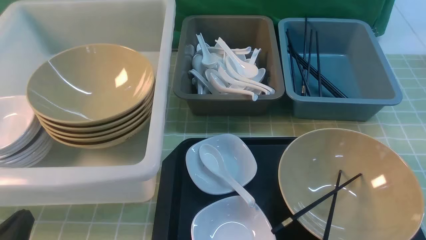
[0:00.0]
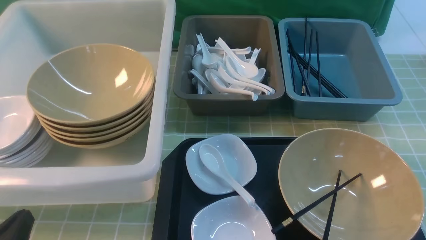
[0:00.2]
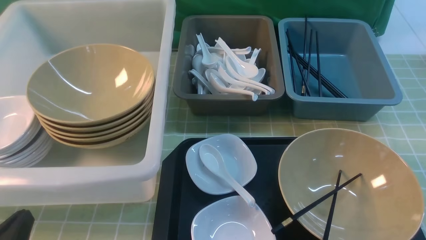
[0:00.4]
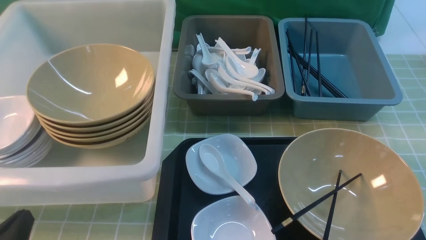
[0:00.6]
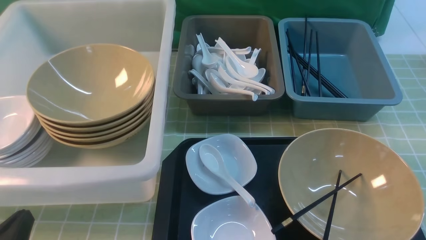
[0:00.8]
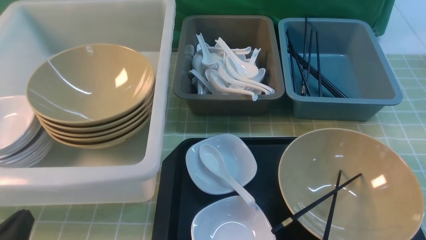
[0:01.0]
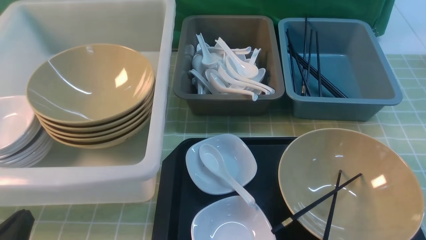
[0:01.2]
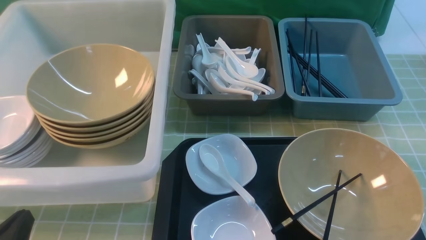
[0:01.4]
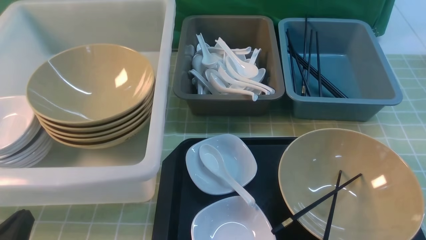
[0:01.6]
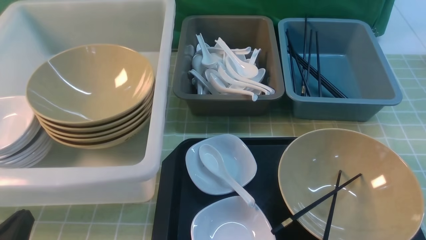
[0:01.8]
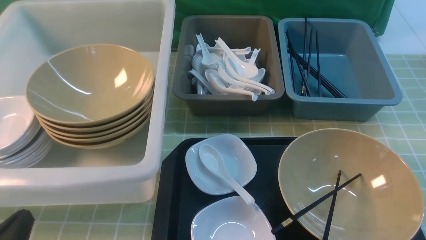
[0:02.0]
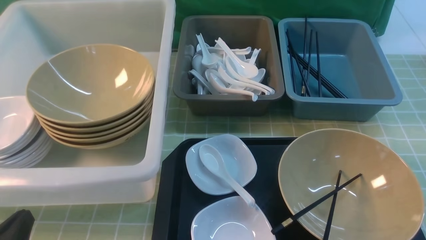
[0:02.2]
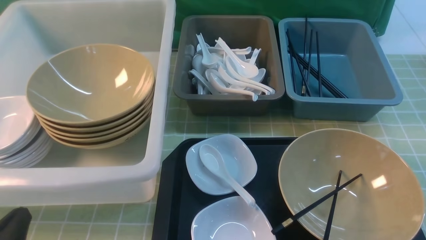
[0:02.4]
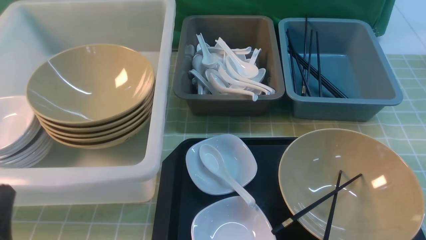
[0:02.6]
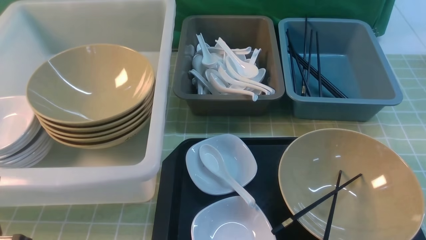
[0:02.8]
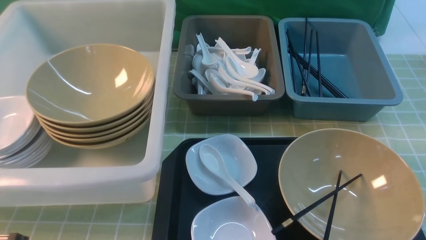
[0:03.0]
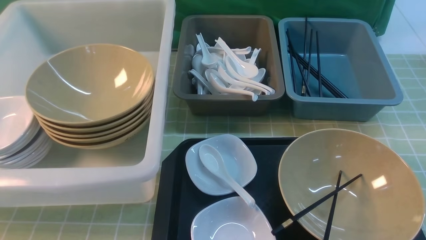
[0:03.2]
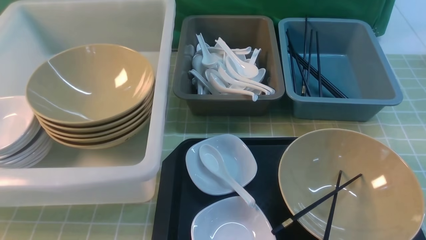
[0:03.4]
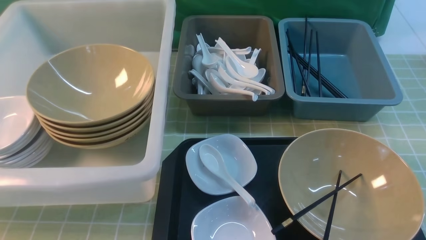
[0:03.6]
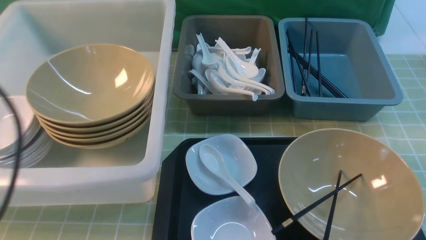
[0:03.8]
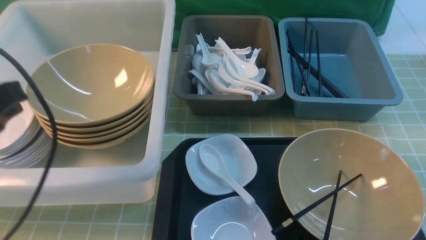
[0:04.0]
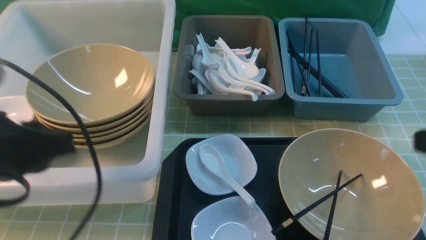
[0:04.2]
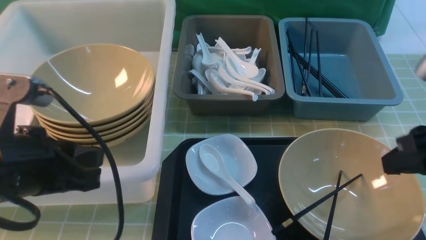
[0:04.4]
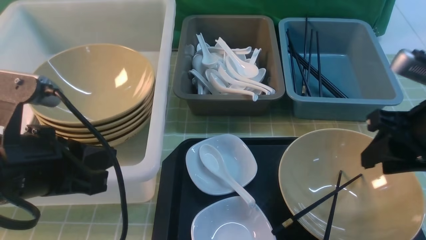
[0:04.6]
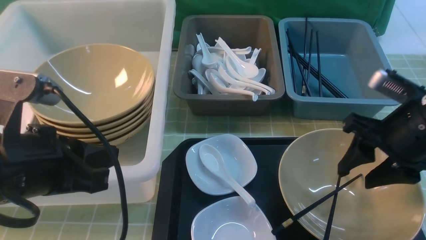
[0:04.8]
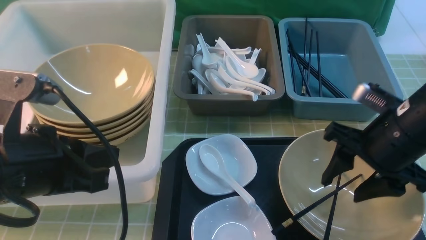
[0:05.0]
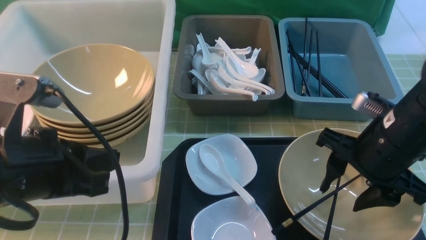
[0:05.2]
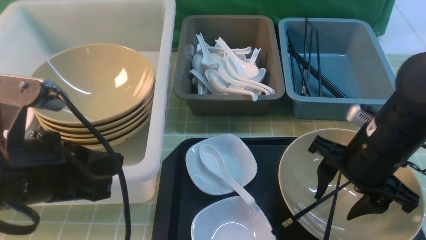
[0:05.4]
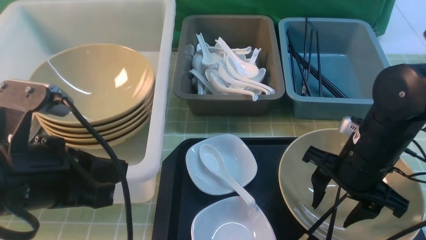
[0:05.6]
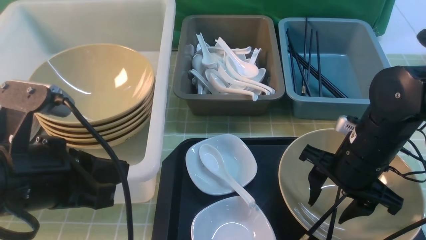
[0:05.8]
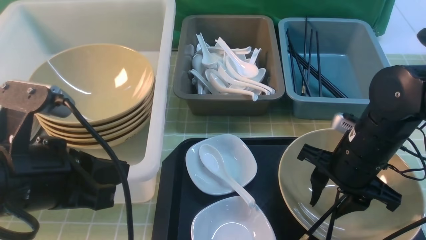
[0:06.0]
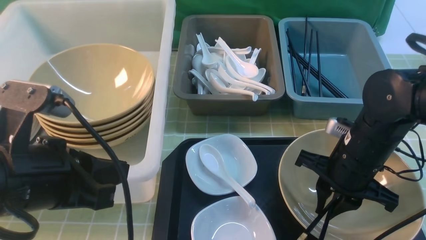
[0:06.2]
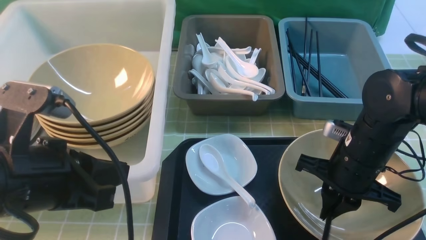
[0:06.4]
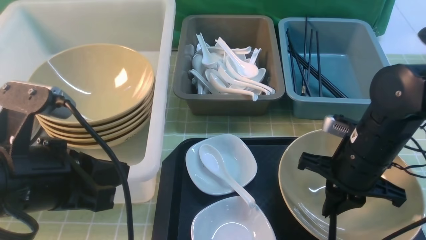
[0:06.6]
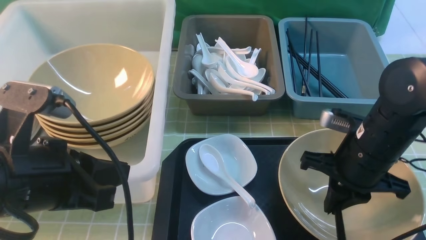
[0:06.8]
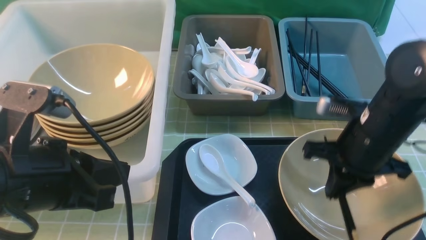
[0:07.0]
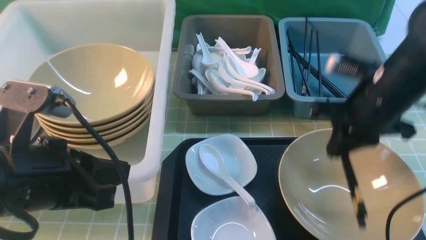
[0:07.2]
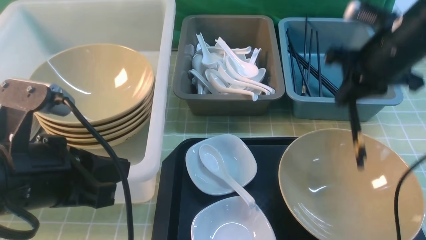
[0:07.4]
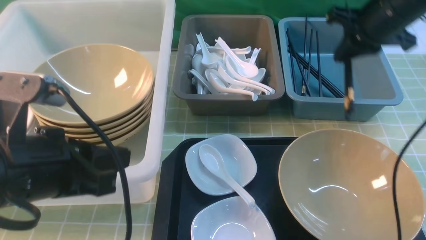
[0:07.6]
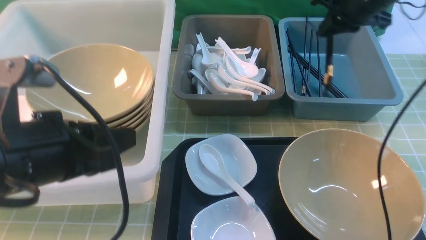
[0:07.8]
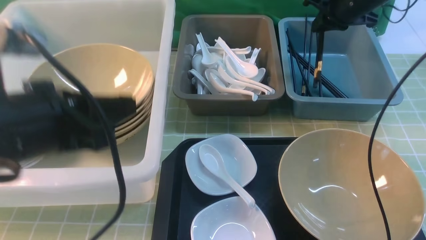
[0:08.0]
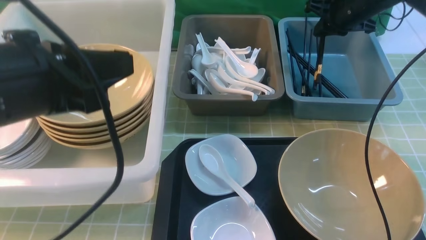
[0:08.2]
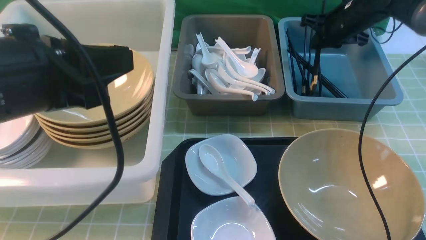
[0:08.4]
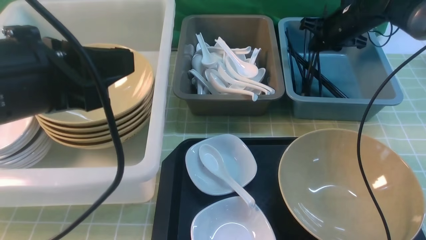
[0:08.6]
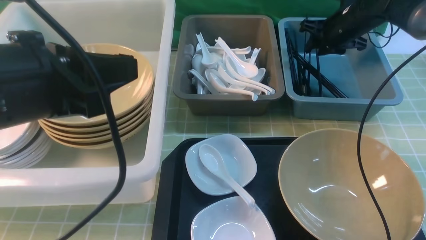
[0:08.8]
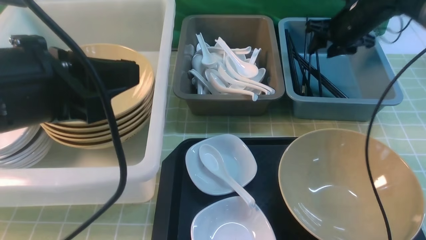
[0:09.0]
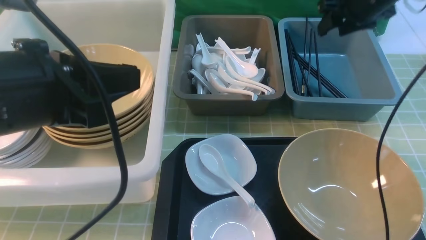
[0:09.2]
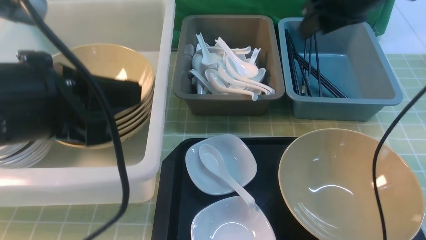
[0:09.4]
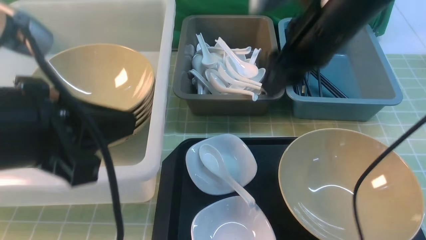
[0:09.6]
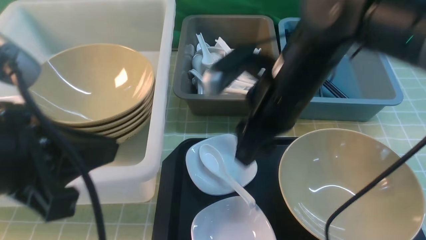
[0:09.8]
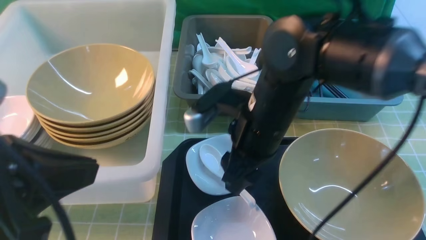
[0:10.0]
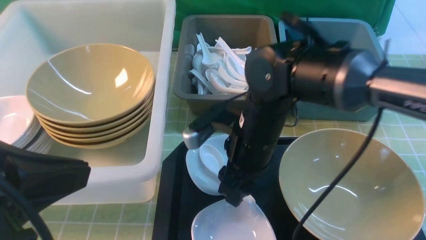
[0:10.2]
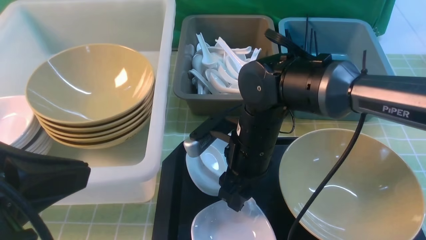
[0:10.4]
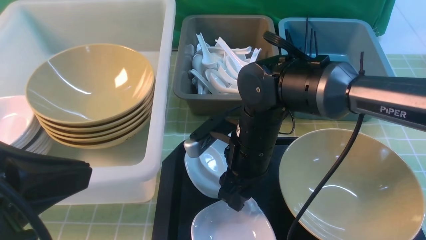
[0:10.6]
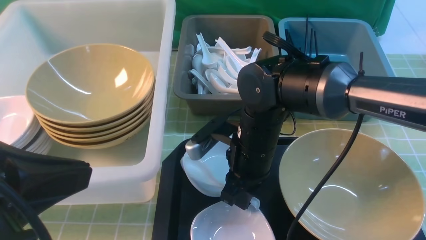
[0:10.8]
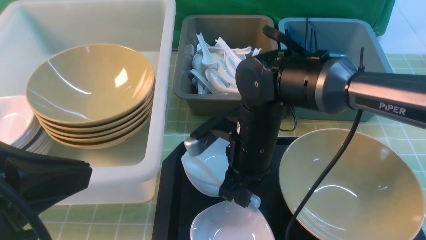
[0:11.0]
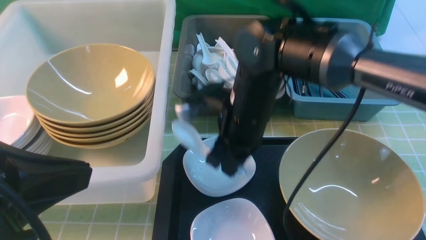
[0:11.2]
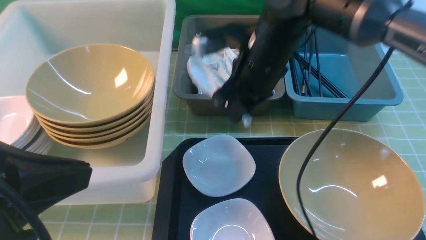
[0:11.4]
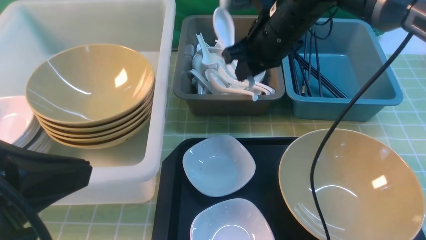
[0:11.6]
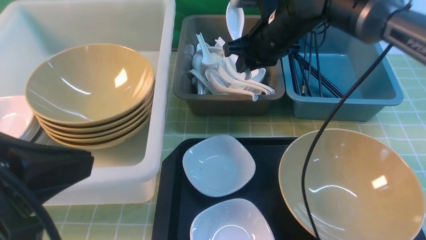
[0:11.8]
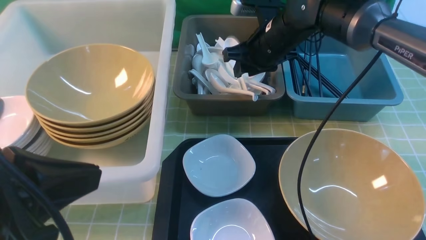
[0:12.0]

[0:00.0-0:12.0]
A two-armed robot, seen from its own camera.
Task of the whole recording: on green table put chopsticks spoon bowls plates into blue grey white boxes.
Step, 0:00.0 to 0:06.8: use the right arm to grab the chopsticks.
Step, 0:07.2 to 0:09.2: use the right arm to put the chopsticks into the small storage box on the right.
Step, 0:09.4 to 0:11.2: use the right arm to grab the soup spoon in the middle.
0:00.0 to 0:01.6: Both grippers stay about where they are.
0:03.0 to 0:04.4: The left gripper shifts approximately 15 cm forward, upward and to the right, while the right gripper shifts about 20 cm forward and upward.
0:04.4 to 0:06.0: The right gripper is displaced downward, to the left and forward by roughly 15 cm.
0:06.0 to 0:07.6: The right gripper shifts approximately 20 cm forward, upward and to the right, and closes its fingers.
0:07.6 to 0:09.0: The left gripper shifts roughly 5 cm upward, while the right gripper travels forward by approximately 10 cm, and opens.
0:09.0 to 0:10.4: The left gripper goes roughly 10 cm backward; the right gripper shifts approximately 30 cm to the left and backward.
0:10.4 to 0:12.0: The right gripper goes about 20 cm forward, upward and to the right, and closes and opens again.

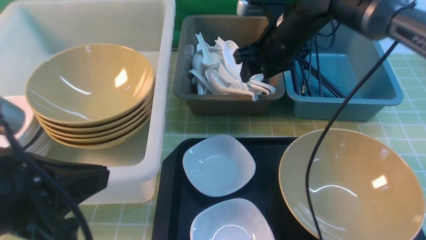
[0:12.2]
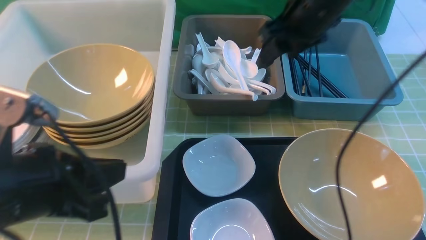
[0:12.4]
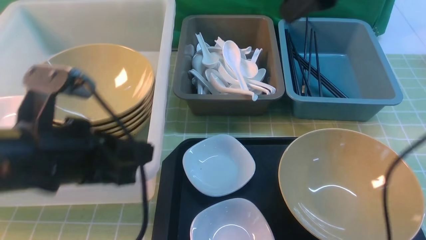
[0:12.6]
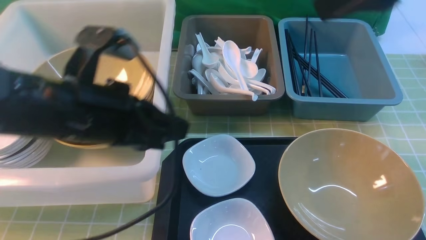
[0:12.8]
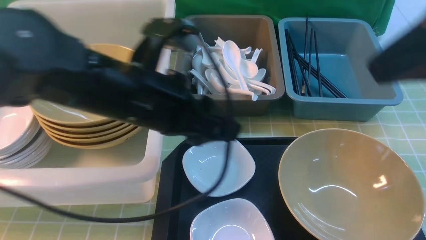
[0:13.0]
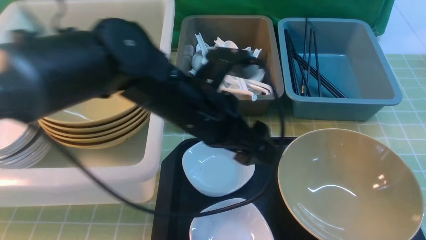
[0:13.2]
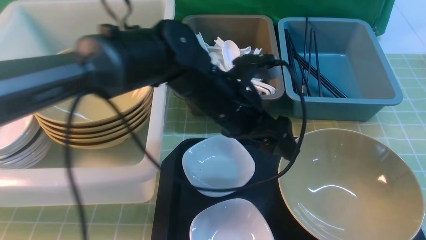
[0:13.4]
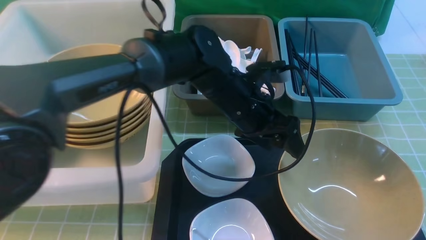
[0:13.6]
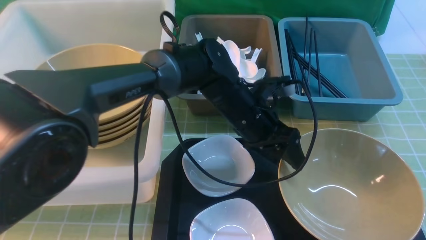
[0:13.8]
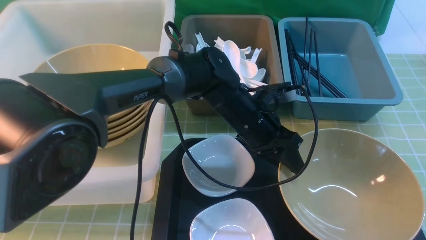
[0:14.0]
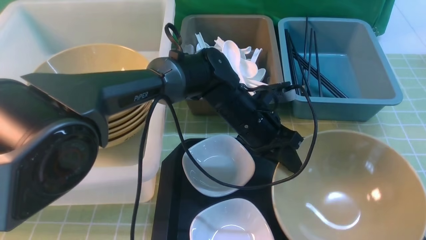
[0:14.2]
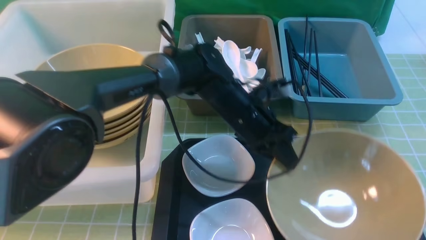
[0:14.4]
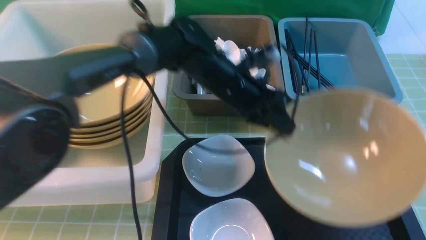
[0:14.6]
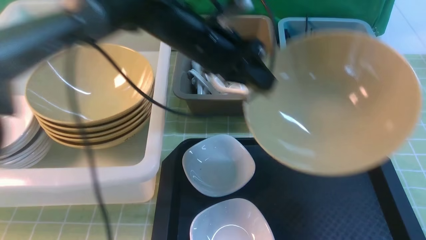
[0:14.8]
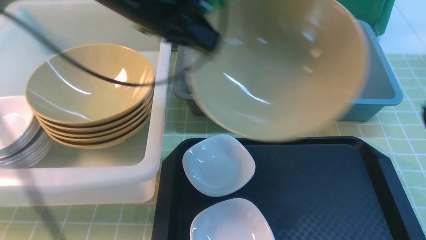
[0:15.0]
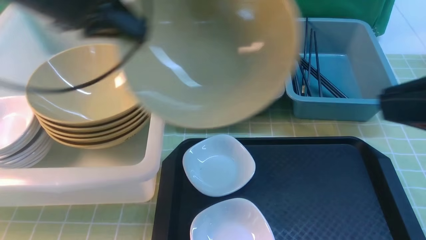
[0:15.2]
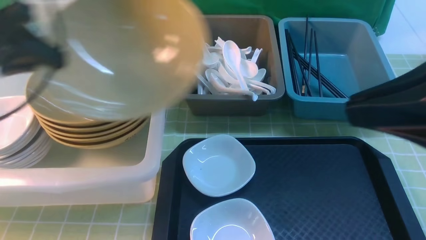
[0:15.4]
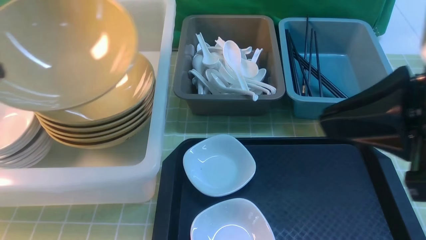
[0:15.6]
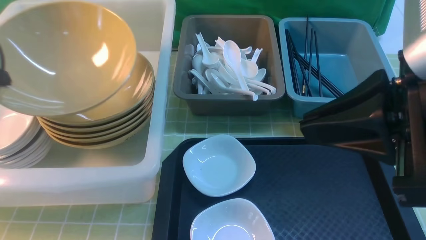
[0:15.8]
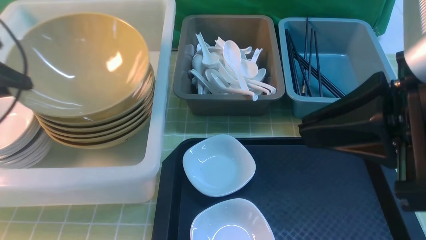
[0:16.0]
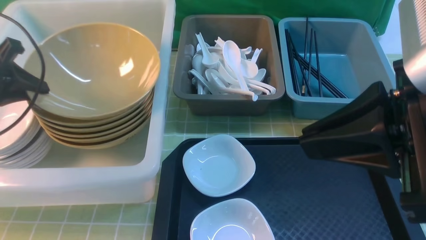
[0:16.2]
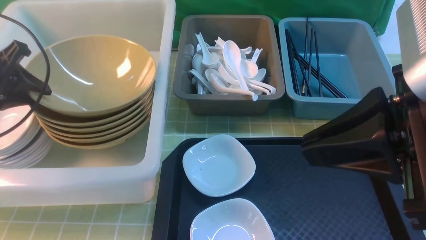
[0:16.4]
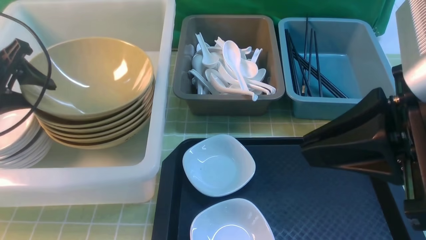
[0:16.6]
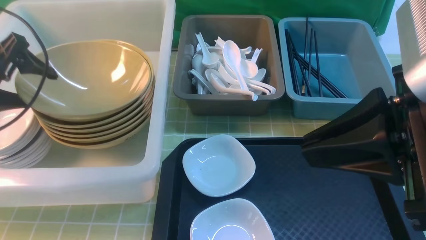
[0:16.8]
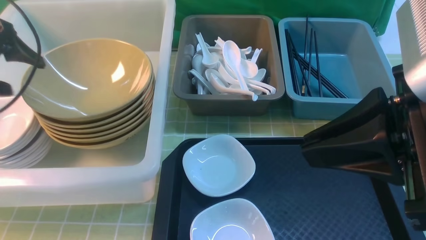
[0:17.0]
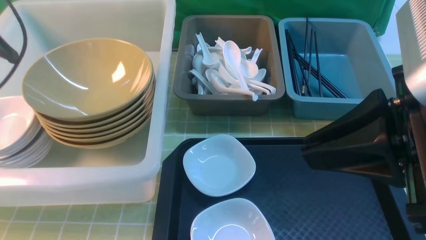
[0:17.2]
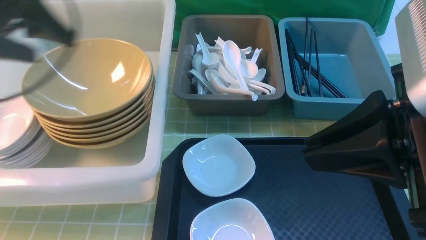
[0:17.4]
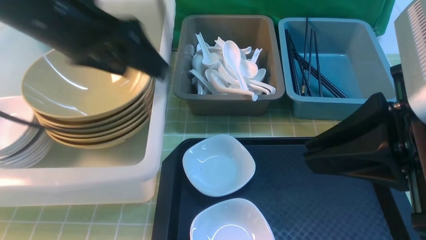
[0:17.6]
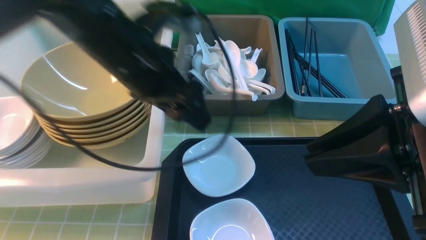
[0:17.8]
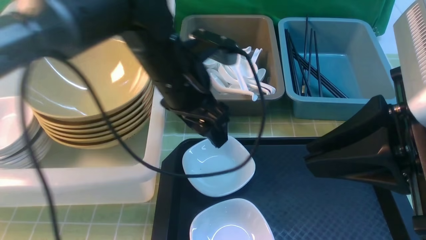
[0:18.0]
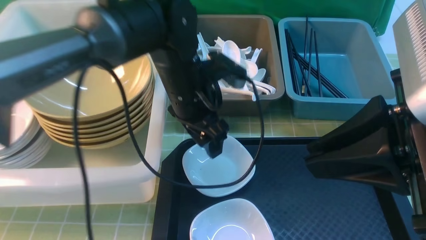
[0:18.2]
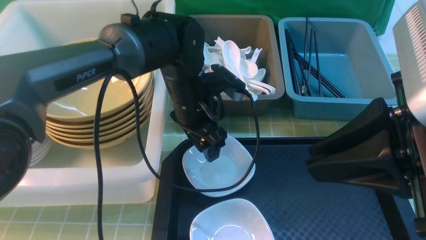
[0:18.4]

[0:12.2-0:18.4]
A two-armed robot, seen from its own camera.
Task of the whole recording: on green table put chopsticks spoon bowls plates into blue grey white boxes.
Step, 0:12.8 to 0:14.6: use the left arm to grab the yellow noodle bowl on the left.
Step, 0:14.8 to 0:17.0: use the left arm to put the noodle bowl into the large storage box on the left.
0:12.2 to 0:13.8: The left gripper heads to the right, forward and downward, covering about 35 cm, and opens. Meanwhile the right gripper is displaced backward by some 35 cm, and closes.
0:13.8 to 0:15.4: The left gripper goes approximately 40 cm to the left and upward, and closes its fingers; the right gripper is displaced to the left by about 5 cm.
0:15.4 to 0:16.8: The left gripper is displaced downward by about 5 cm, and opens.
0:16.8 to 0:18.4: The left gripper goes some 30 cm to the right.
